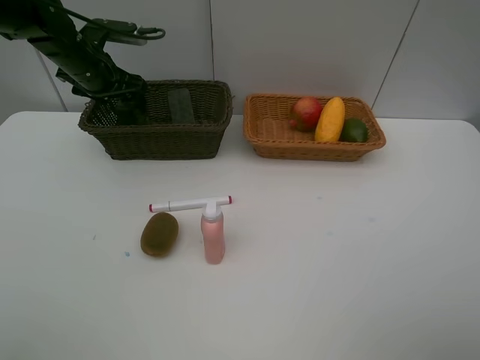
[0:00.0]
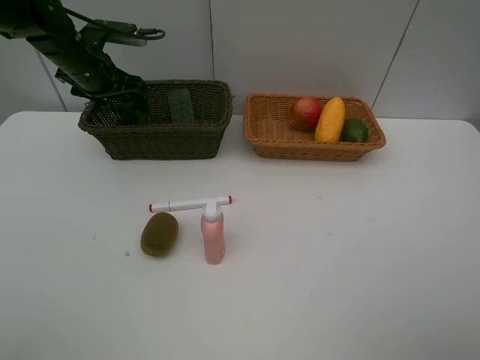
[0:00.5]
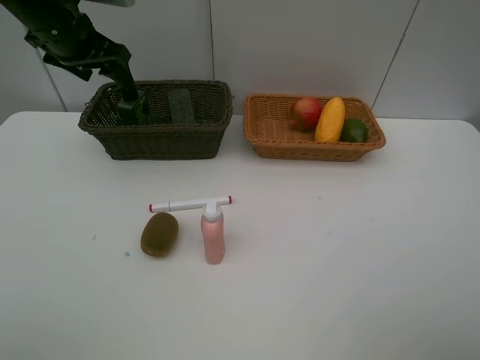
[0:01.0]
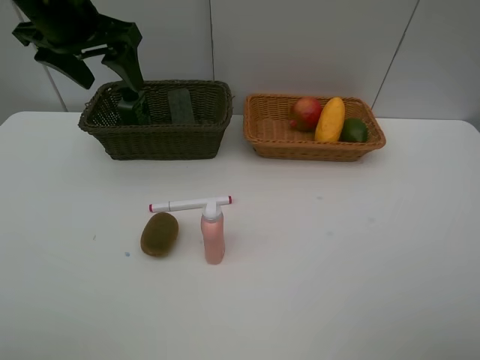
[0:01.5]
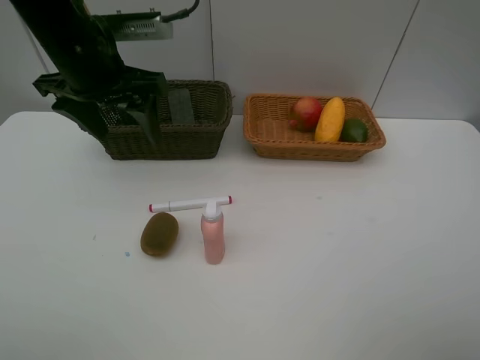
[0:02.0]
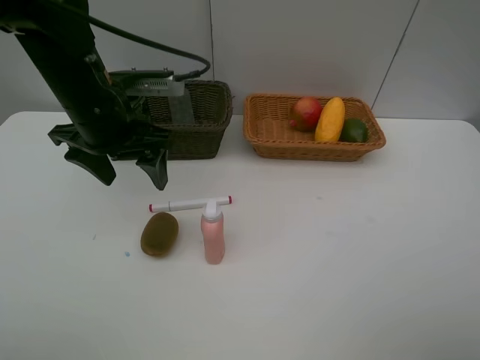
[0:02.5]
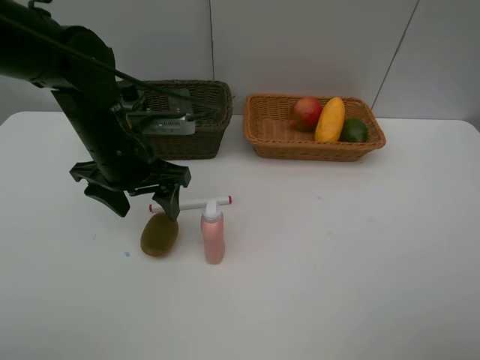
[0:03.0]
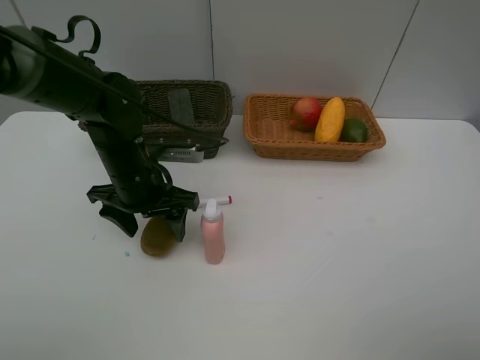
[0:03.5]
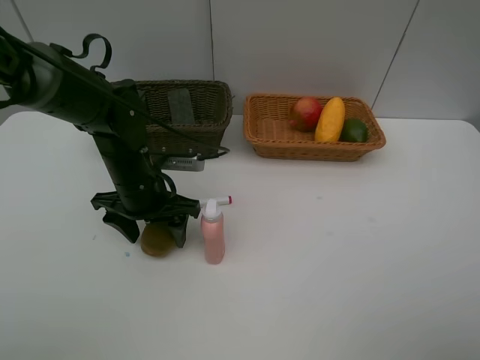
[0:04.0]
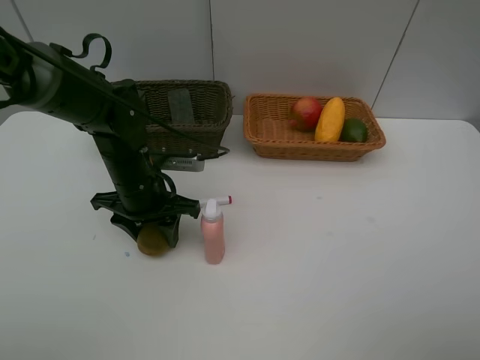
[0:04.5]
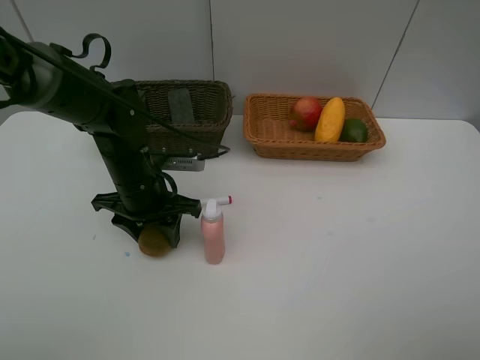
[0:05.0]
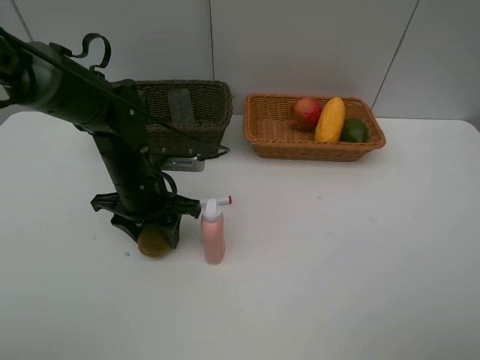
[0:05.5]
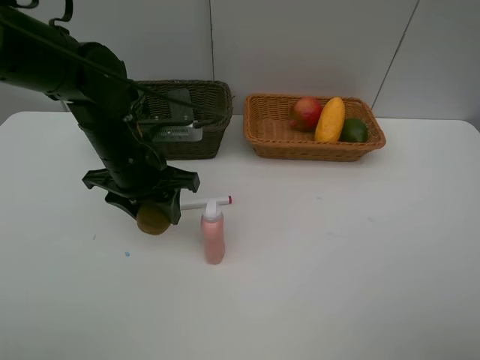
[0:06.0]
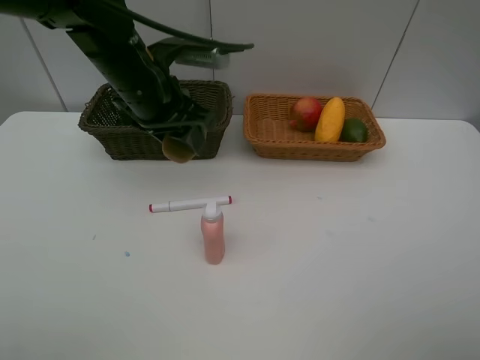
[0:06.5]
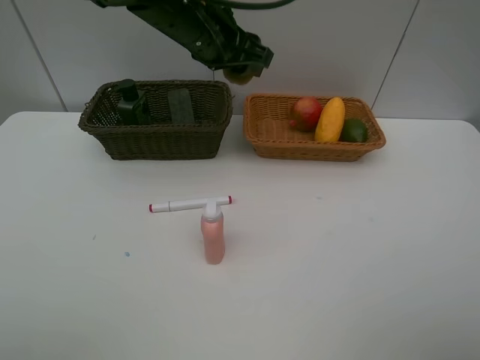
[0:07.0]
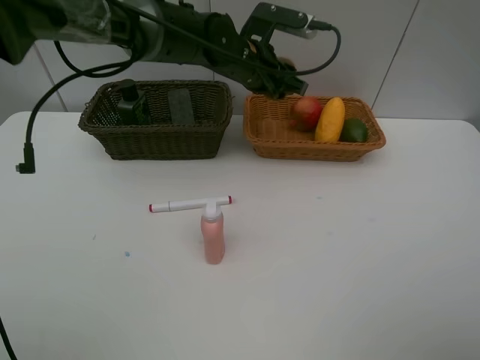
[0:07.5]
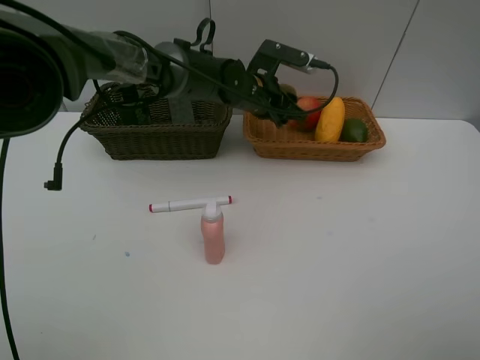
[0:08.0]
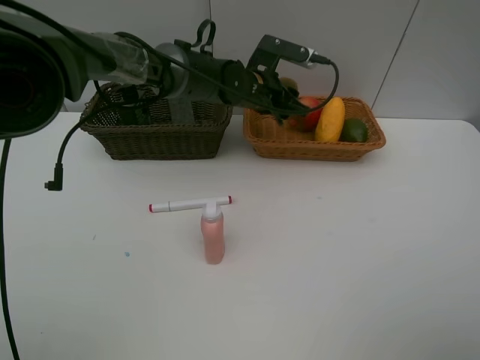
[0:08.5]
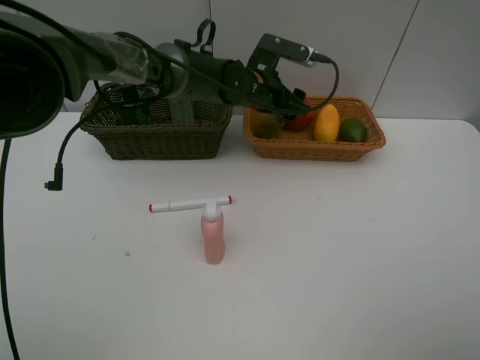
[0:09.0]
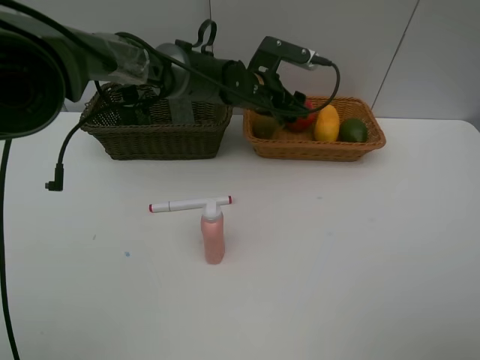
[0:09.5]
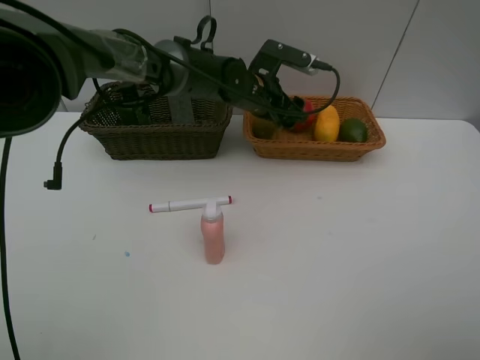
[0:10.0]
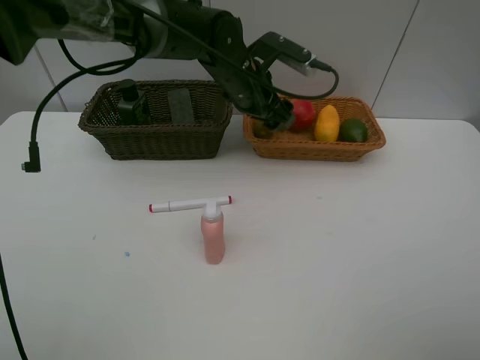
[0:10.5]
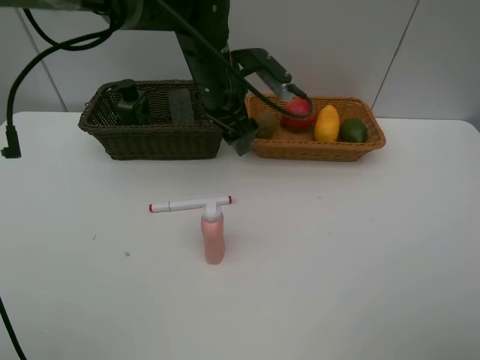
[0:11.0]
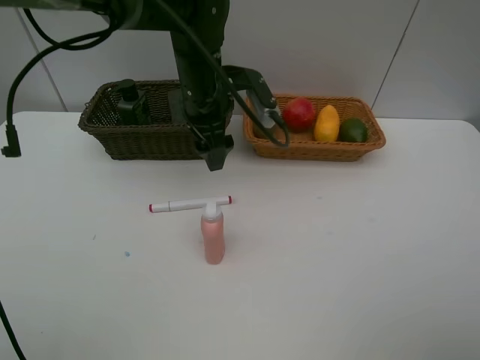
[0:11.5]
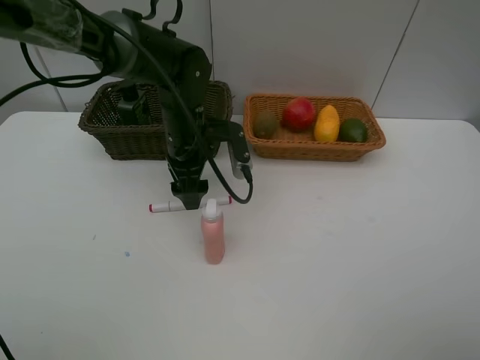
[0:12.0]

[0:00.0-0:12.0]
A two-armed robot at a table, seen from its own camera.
Task of the whole recording: Place multiple objects separately in different baskets.
Step, 0:01.0 to 0:06.0: Pick up kiwi with left gripper.
Step, 0:06.5 to 0:09.5: Place the kiwi in the light basket with left gripper.
0:00.0 to 0:02.0: The left gripper goes some 20 cm backward, to the right and upward.
0:02.0 to 0:04.0: The left gripper heads downward, covering roughly 15 cm.
0:04.0 to 0:06.0: The left gripper moves upward, roughly 5 cm, and closes up.
0:06.0 to 0:08.0: The left gripper is displaced to the right and forward by approximately 20 cm.
0:08.0 to 0:10.0: The left gripper opens its fingers.
0:10.0 to 0:12.0: The left gripper goes approximately 10 cm to the left and backward.

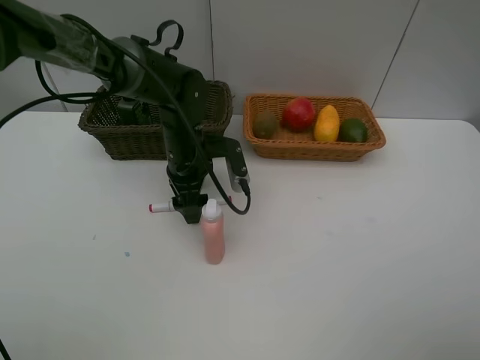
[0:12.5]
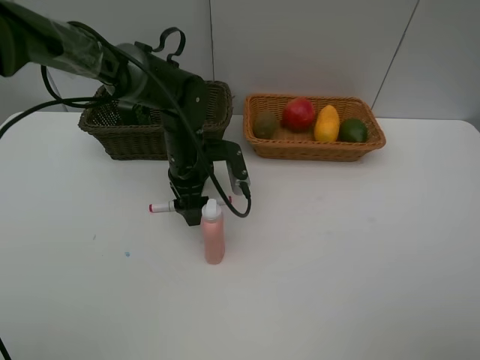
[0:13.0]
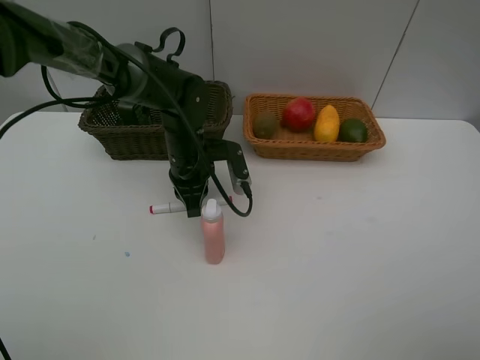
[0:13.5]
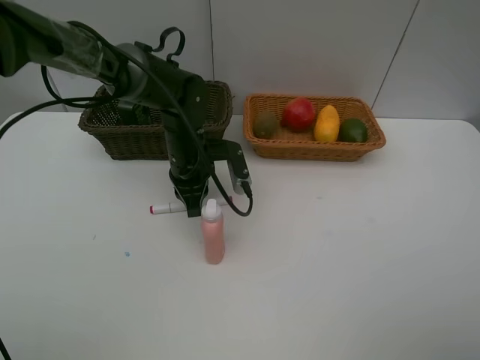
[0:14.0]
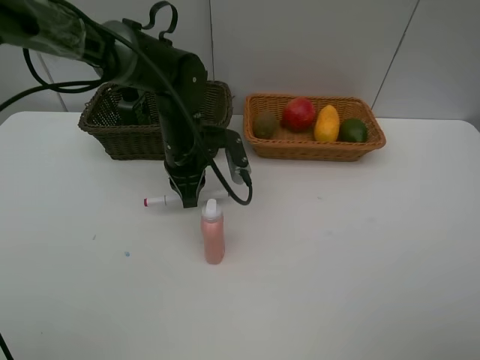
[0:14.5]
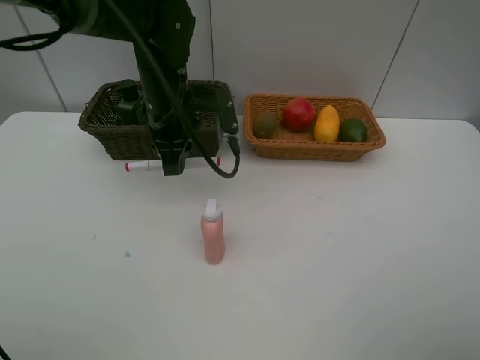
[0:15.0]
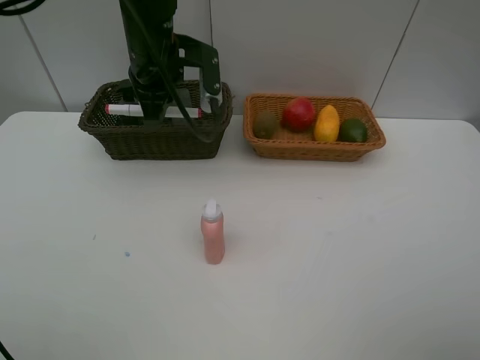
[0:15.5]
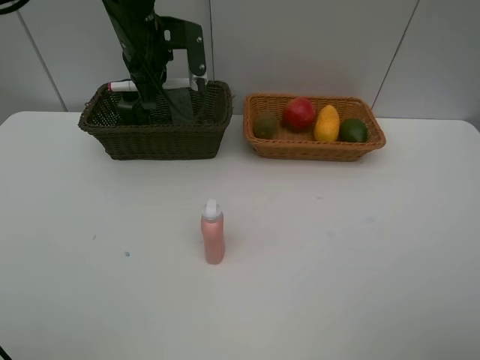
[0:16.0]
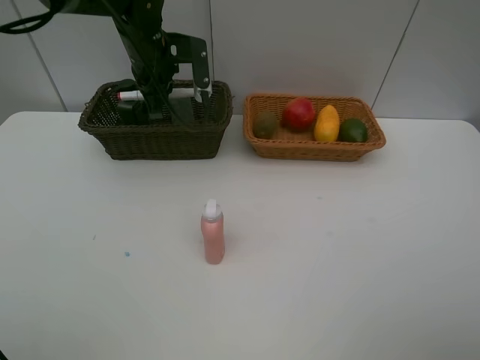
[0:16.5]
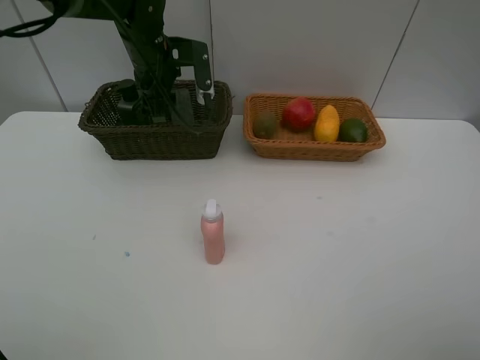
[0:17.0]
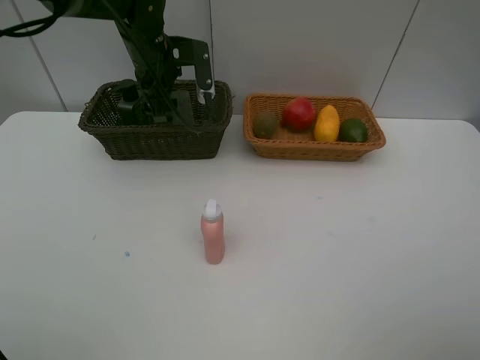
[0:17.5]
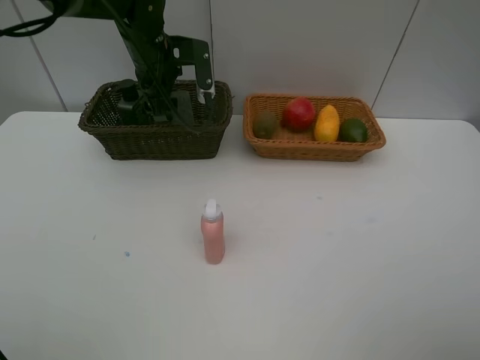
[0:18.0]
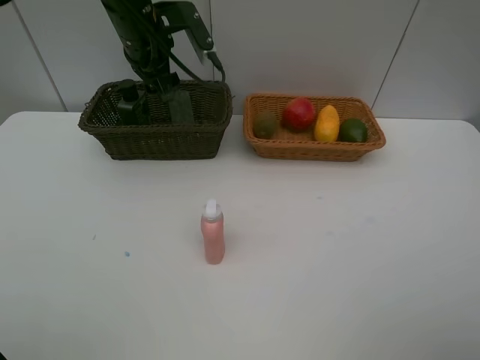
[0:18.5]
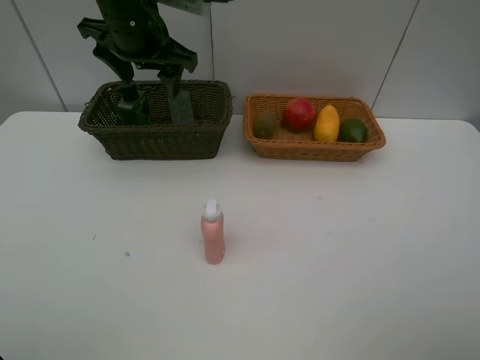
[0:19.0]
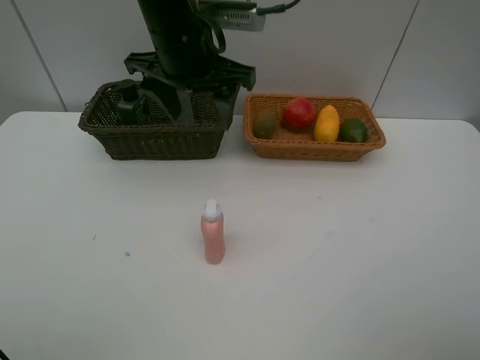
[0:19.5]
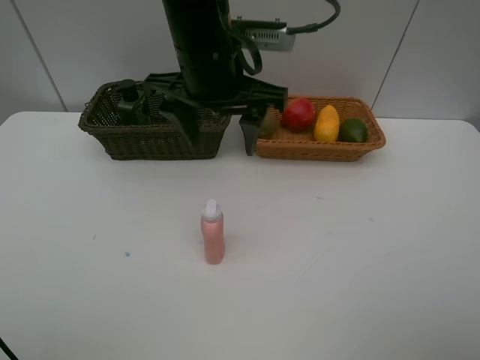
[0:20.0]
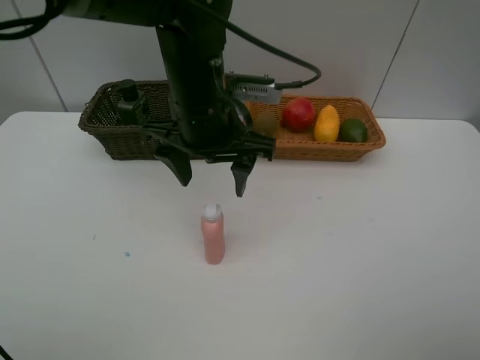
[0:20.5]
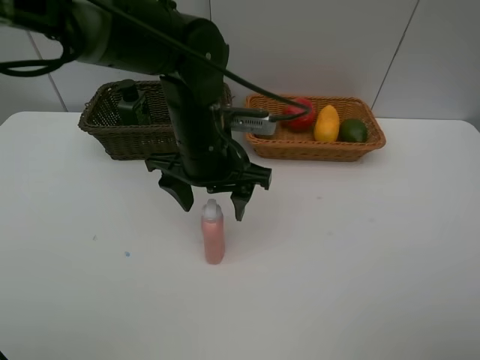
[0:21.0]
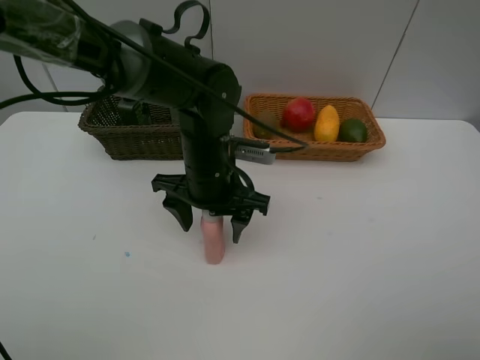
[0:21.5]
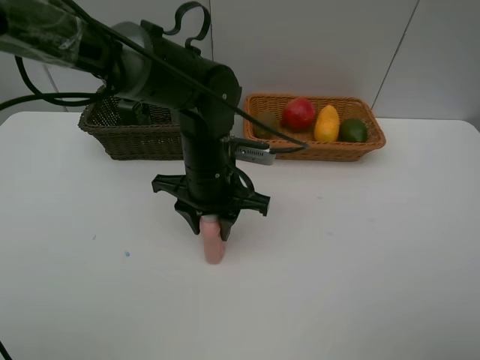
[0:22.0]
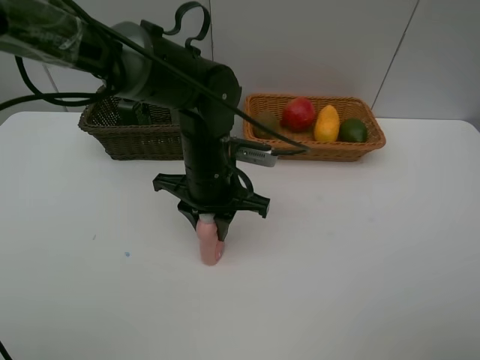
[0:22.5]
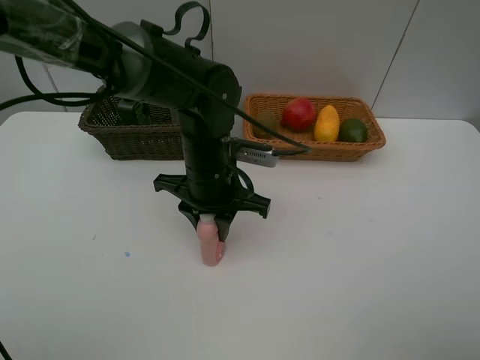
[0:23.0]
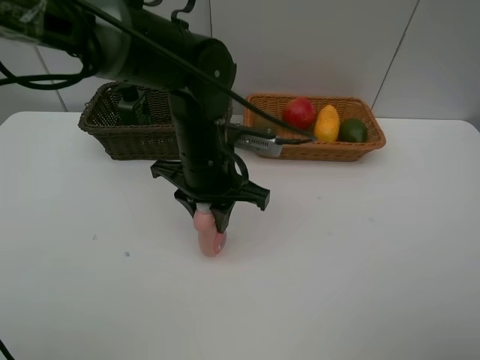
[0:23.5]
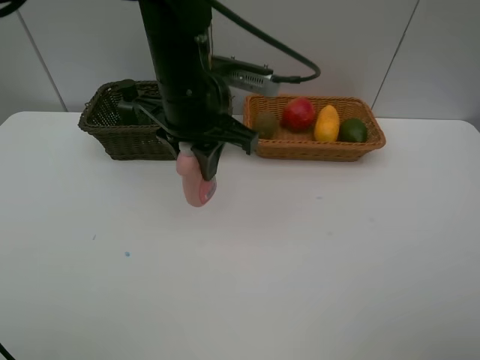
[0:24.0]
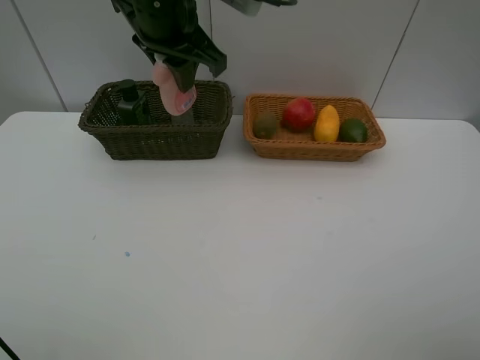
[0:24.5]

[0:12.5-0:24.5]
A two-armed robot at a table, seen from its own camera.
Task of the whole recording: Place multiple objects separately in different baskets.
Step, 0:12.5 to 0:14.5: Pick up the red marker with left gripper.
Step, 0:15.0 to 0:18.0: Place the red marker in the dark basket with left gripper.
Step, 0:18.5 to 0:23.5: Pick up the laundry detergent with left gripper.
0:12.5 to 0:14.5: The left gripper closes its fingers.
0:14.5 to 0:16.5: The left gripper travels upward, forward and to the left by about 15 cm.
0:16.5 to 0:18.5: The left gripper opens up.
0:18.5 to 0:20.5: The left gripper heads backward and to the right, covering about 15 cm.
0:20.5 to 0:22.5: The left gripper moves downward, approximately 10 cm, and closes.
0:22.5 to 0:24.5: The left gripper travels upward and forward by about 20 cm.

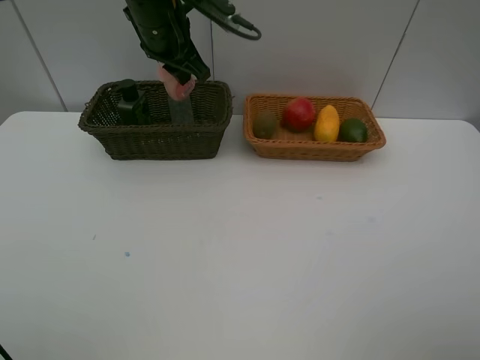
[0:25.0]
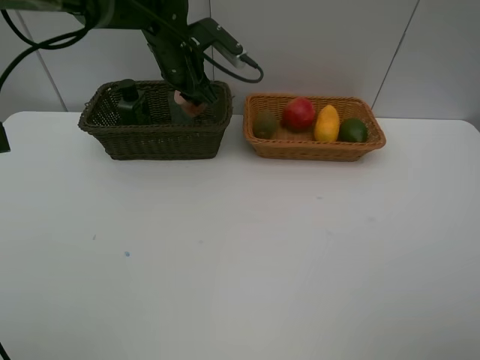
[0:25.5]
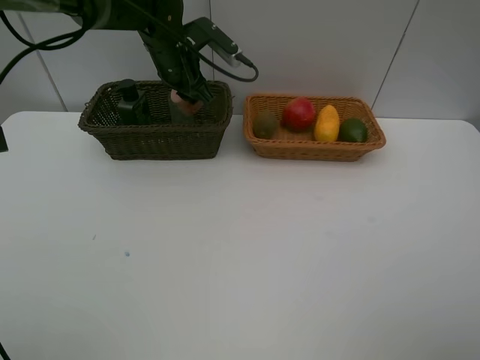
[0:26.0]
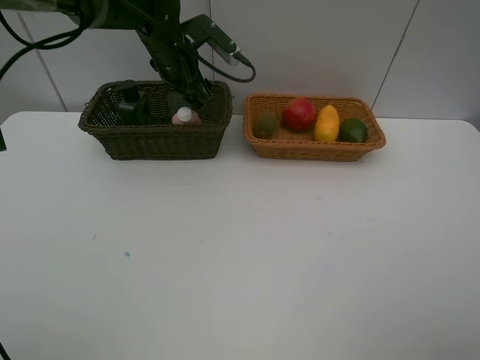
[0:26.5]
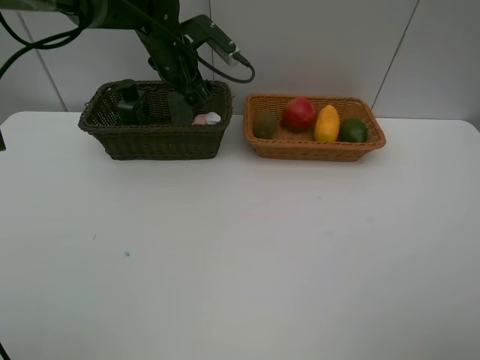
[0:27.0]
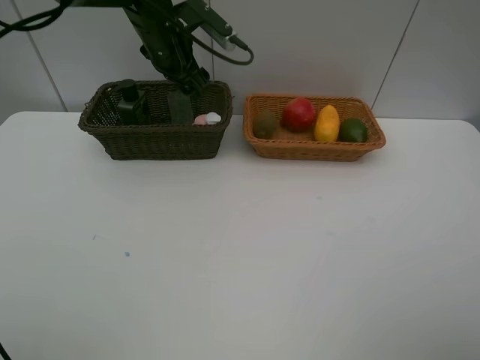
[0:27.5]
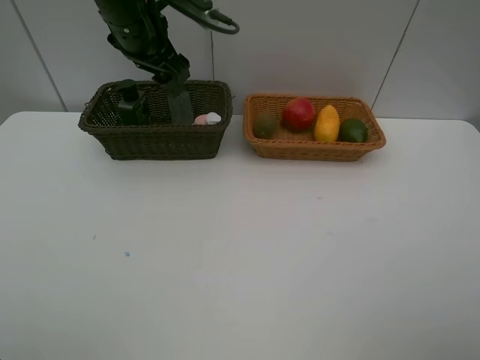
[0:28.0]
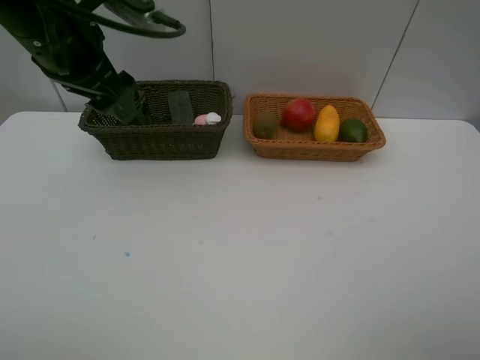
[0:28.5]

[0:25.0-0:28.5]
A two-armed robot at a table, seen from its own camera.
Task of the whole recording: Place multiple objects separately in different baskets.
Step, 0:25.0 to 0:26.5: Place the laundry detergent in the dark basket with left gripper.
0:25.0 to 0:27.0: The left gripper travels downward by about 5 cm, and opens up.
0:27.0 to 0:28.5: The left gripper goes roughly 20 cm backward, upward and to the left.
